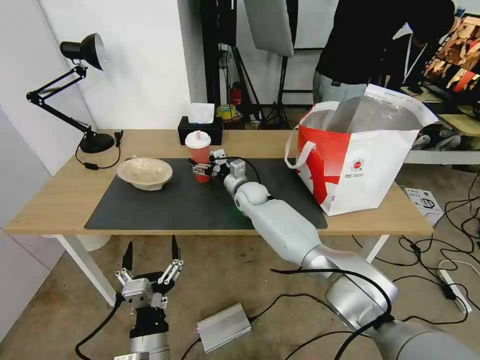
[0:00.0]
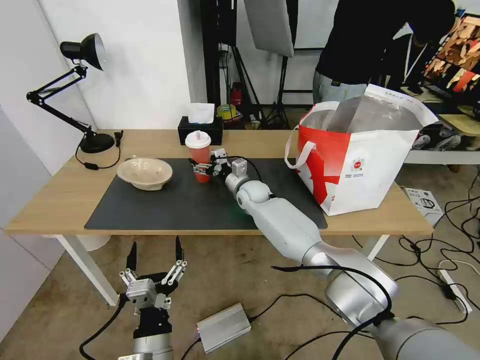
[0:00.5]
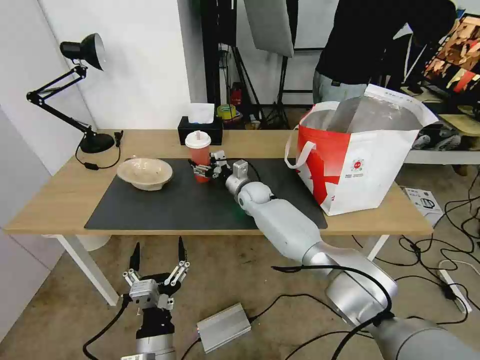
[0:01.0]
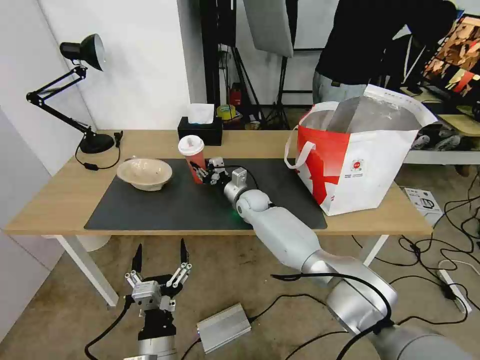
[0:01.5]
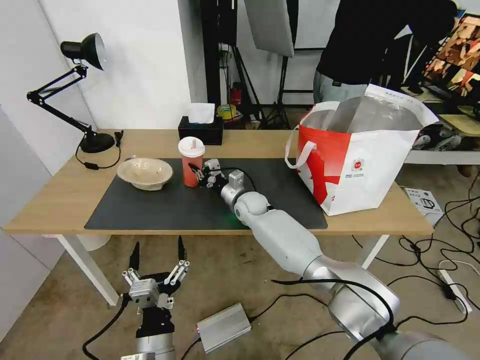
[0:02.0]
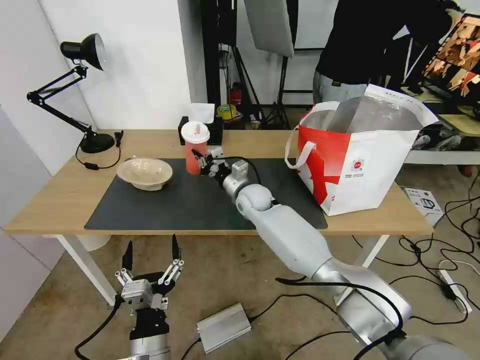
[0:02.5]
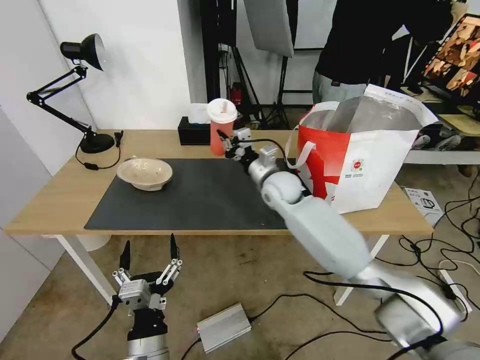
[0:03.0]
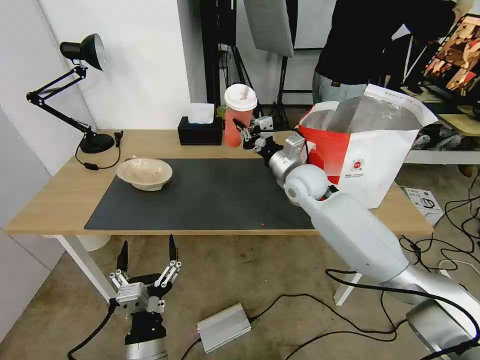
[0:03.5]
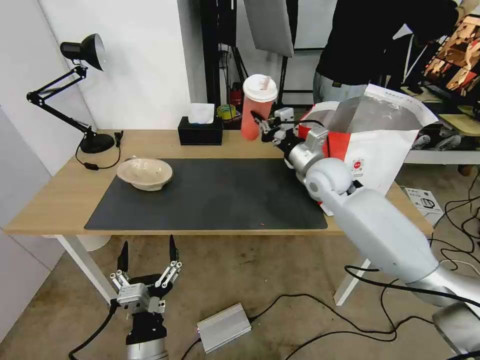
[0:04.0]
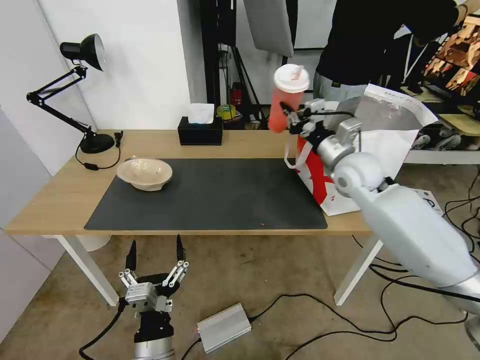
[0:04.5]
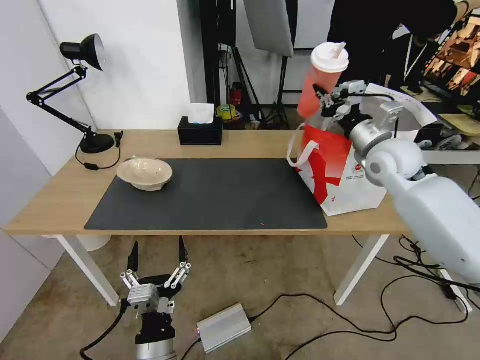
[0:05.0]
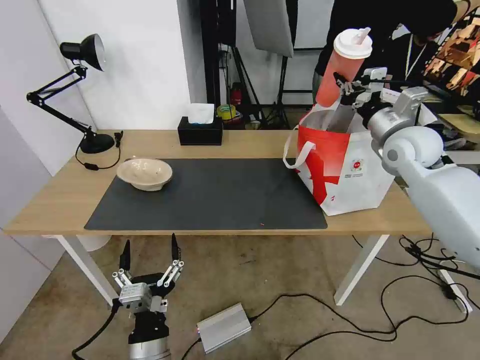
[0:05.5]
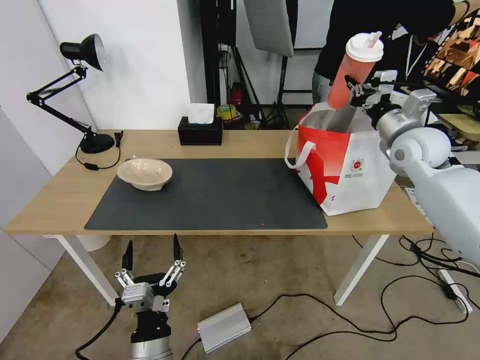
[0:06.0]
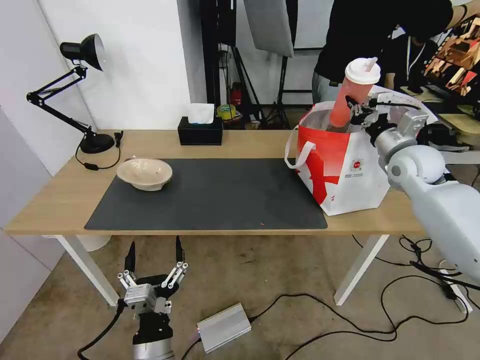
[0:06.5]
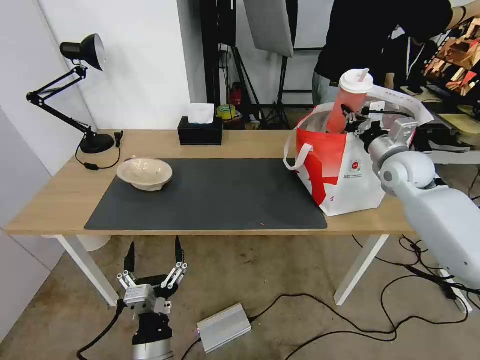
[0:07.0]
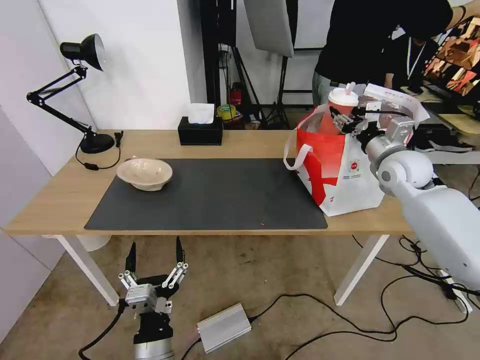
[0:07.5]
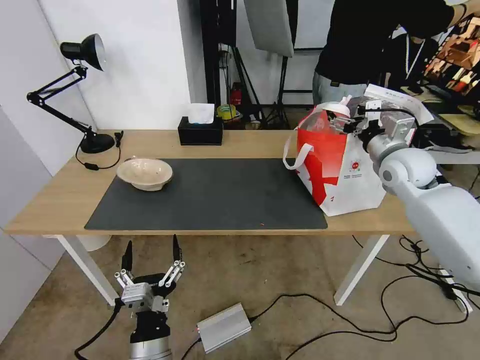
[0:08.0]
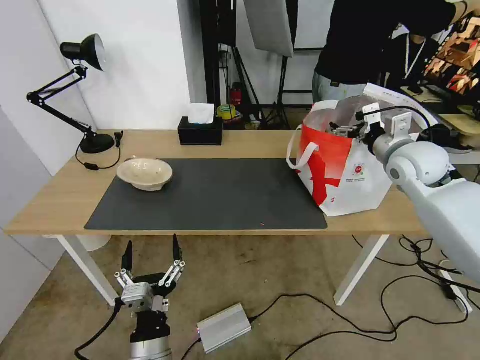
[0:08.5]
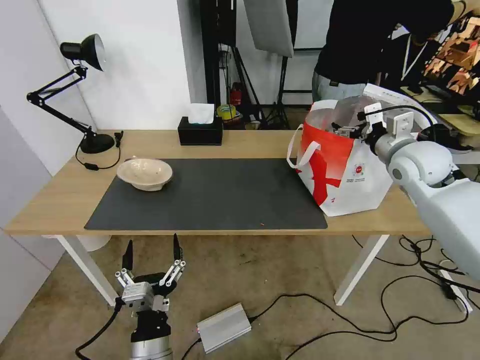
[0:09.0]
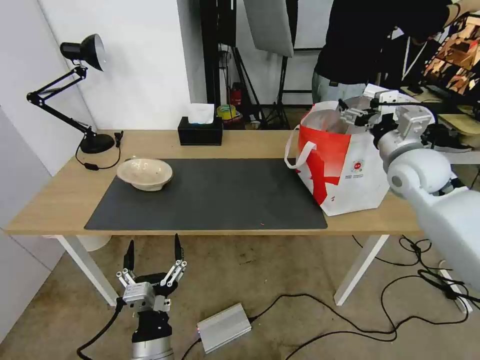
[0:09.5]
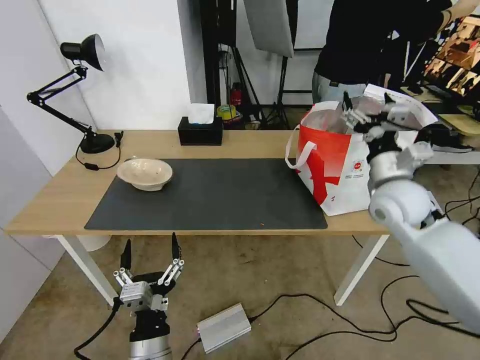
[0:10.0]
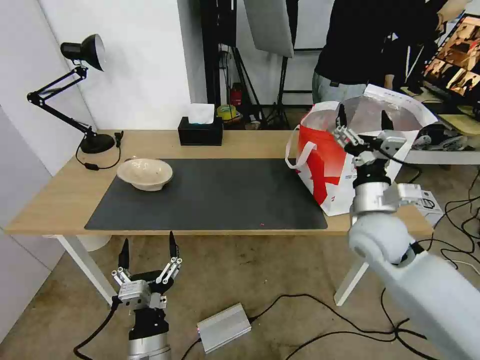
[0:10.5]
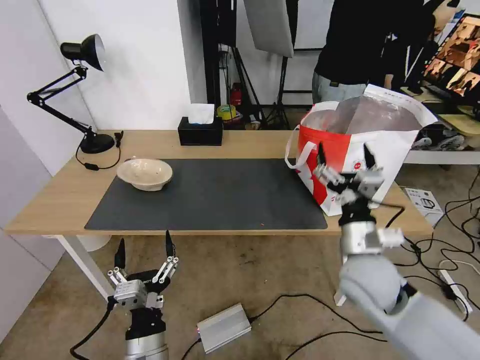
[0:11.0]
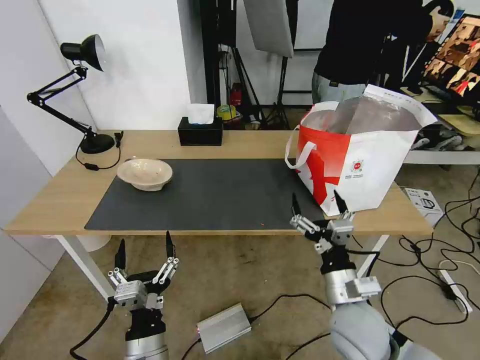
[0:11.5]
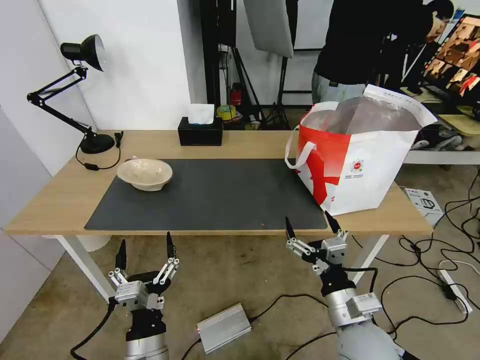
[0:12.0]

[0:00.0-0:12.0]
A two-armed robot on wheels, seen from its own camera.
Task of the whole recording: Pick up the trash from the table and place it into the takeout bag.
0.0 to 2.0 s: The right gripper closes its fingers.
2.0 to 4.0 s: The right gripper moves upward and to the right, some 25 cm.
4.0 to 6.0 s: The right gripper moves to the right, approximately 20 cm.
6.0 to 8.0 s: The right gripper opens up.
8.0 to 10.0 s: The right gripper heads backward, covering about 10 cm.
10.0 to 12.0 s: The right gripper is displaced backward, downward and to the left by roughly 30 cm.

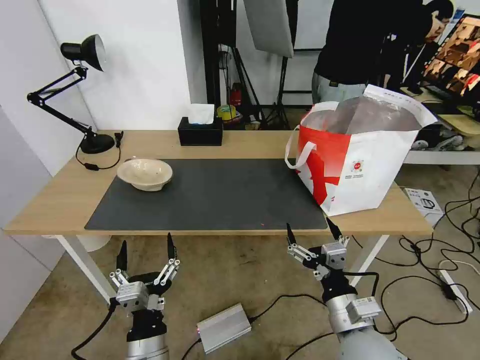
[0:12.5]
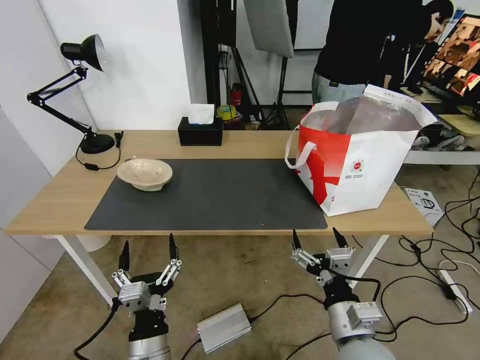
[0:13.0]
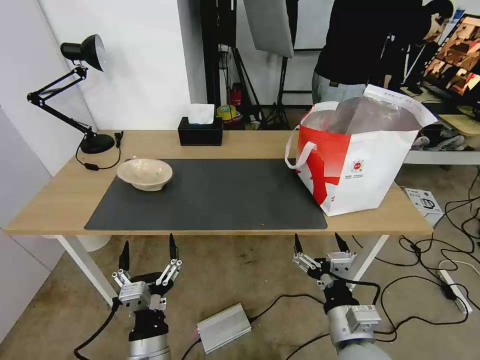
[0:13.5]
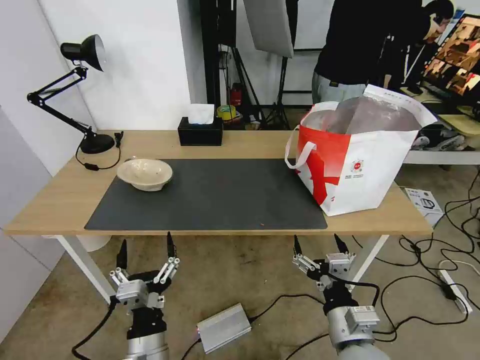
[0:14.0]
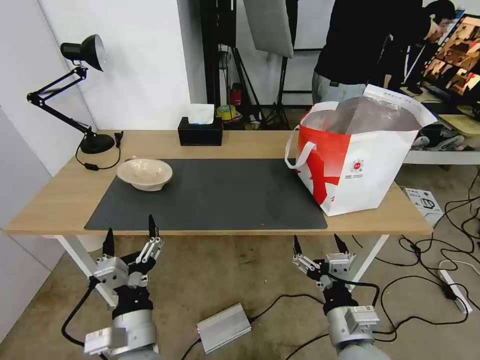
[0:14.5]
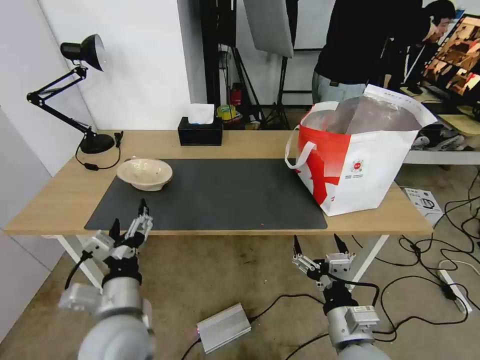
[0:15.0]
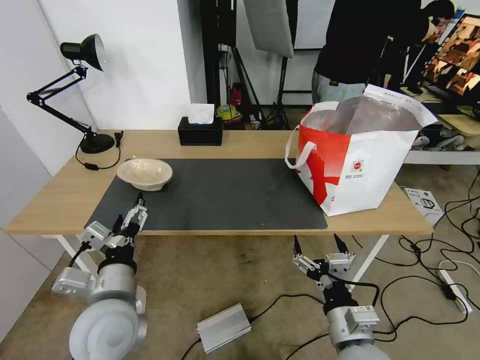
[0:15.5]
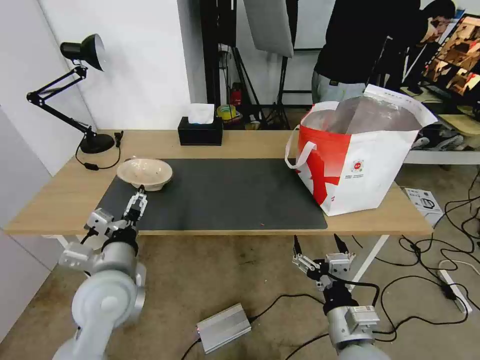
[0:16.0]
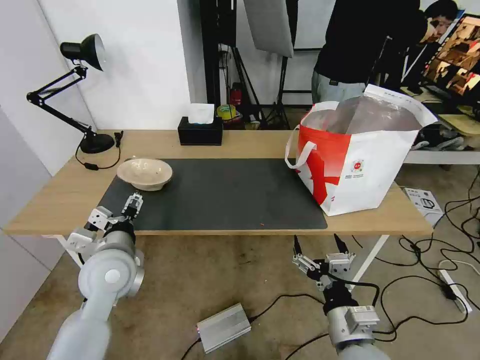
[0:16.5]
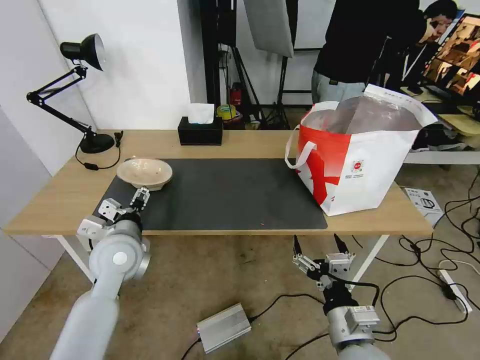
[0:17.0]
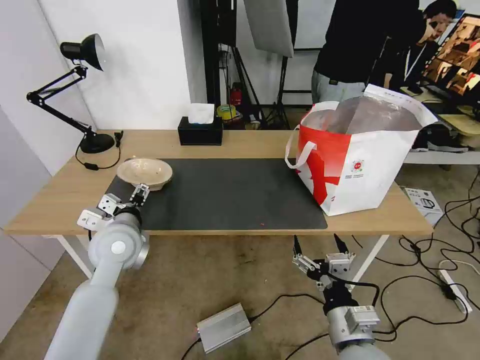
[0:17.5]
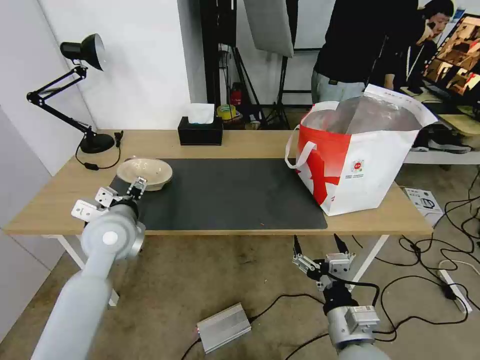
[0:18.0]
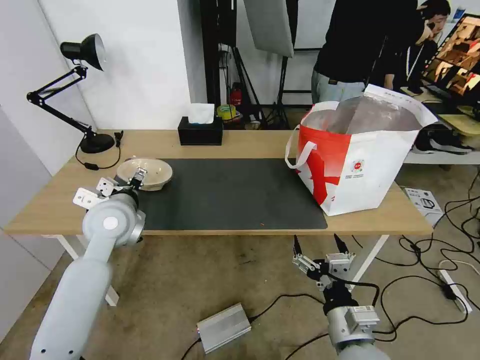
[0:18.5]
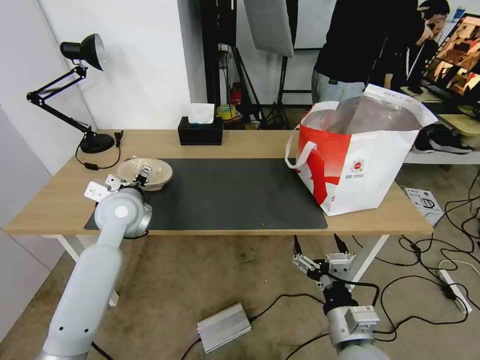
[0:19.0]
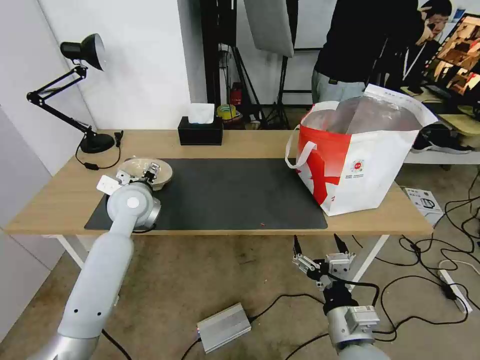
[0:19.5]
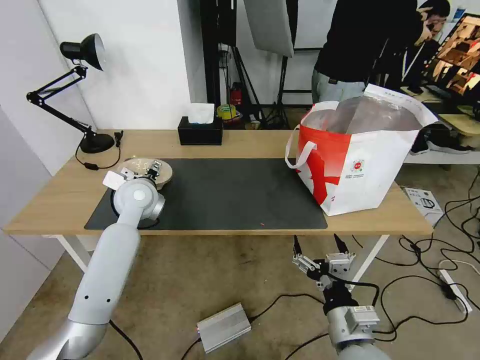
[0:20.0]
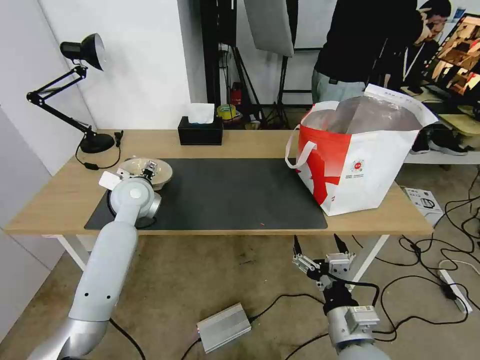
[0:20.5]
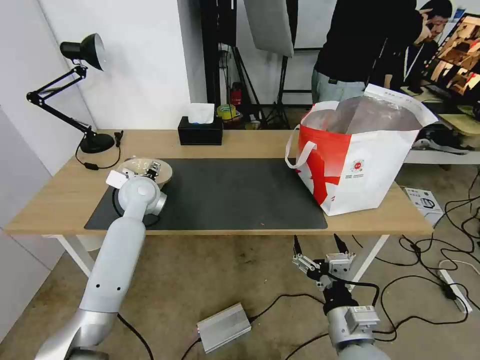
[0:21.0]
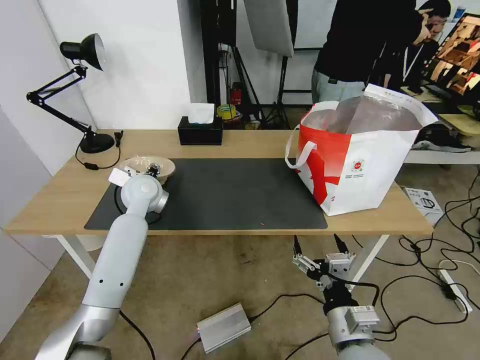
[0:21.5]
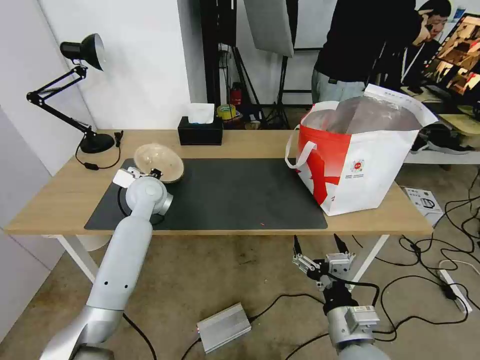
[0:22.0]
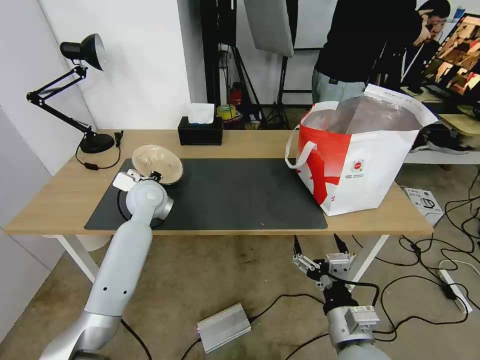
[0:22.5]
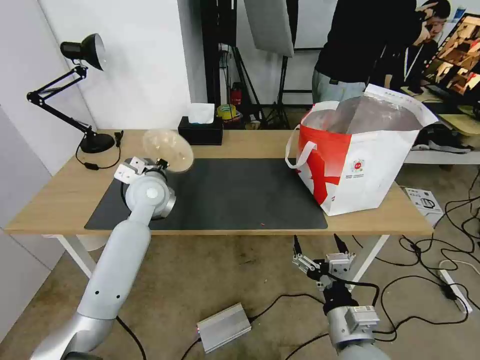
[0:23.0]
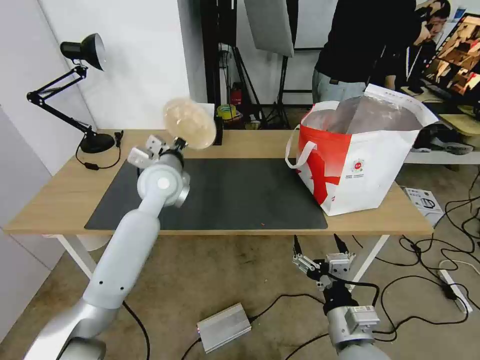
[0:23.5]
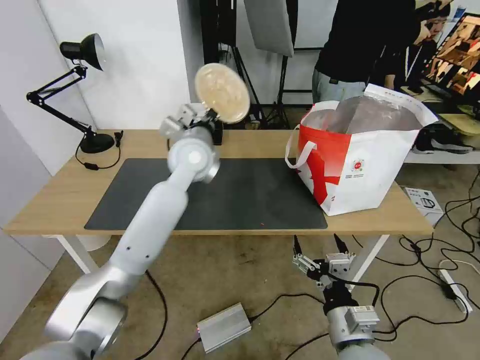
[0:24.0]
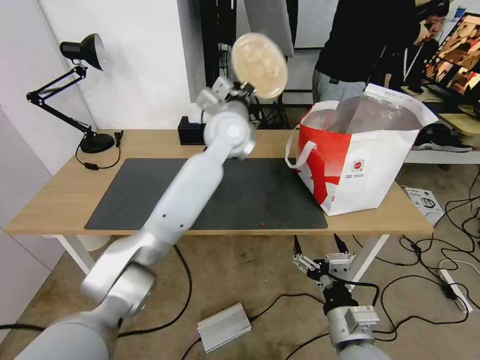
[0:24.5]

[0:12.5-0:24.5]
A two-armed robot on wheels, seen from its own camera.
Task of the whole recording: Pick up the trash from the table and place it into the takeout bag.
12.5 to 14.5 s: The left gripper moves some 5 cm.
14.5 to 16.5 s: The left gripper shifts some 20 cm forward, to the left and upward.
16.5 to 18.5 s: The left gripper goes approximately 10 cm forward and upward.
18.5 to 20.5 s: The left gripper travels forward by roughly 10 cm.
20.5 to 22.5 s: The left gripper closes up.
22.5 to 24.5 s: The left gripper is displaced to the right and upward by approximately 25 cm.

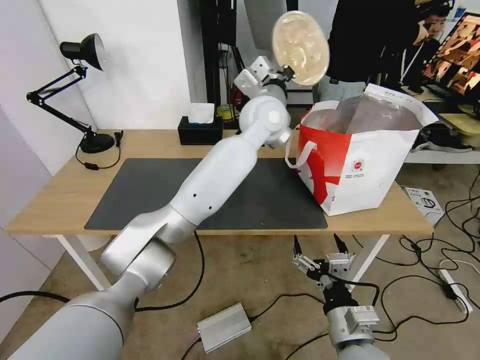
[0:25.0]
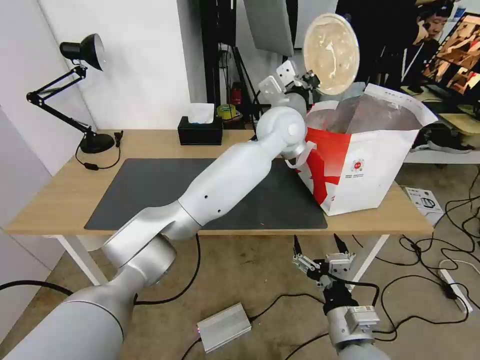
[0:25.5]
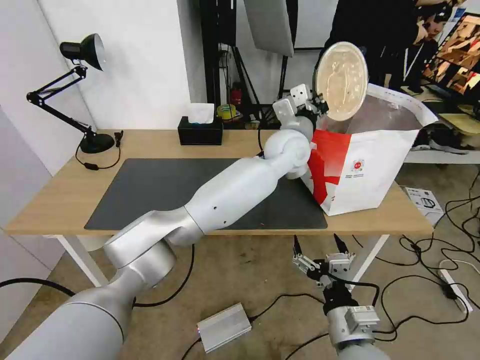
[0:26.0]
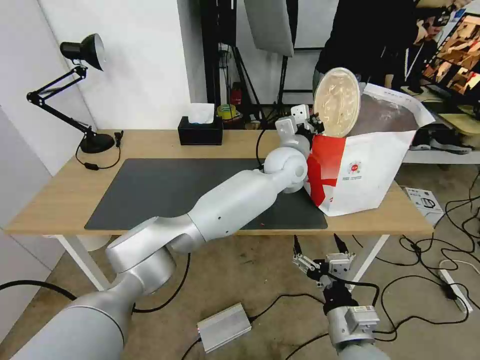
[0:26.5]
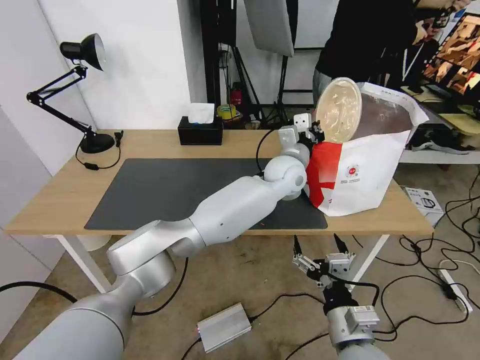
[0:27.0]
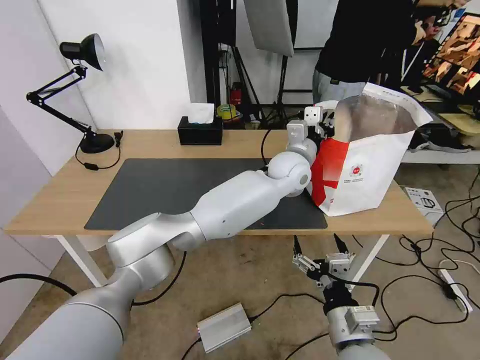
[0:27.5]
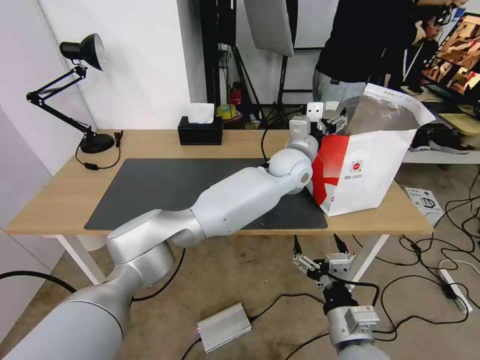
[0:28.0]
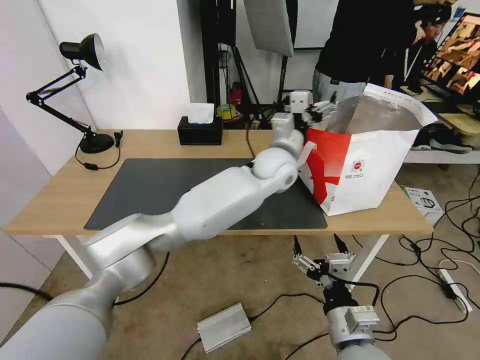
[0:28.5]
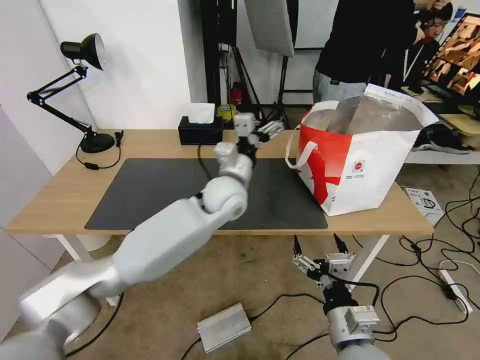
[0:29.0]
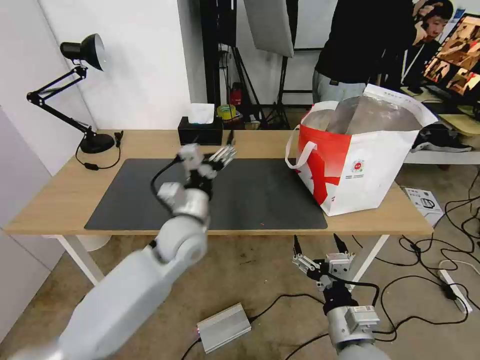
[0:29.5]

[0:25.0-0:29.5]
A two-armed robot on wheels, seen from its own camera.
Task of the whole recording: Pick up the trash from the table and place it into the takeout bag.
25.0 to 27.0 s: The left gripper travels downward and to the right by some 15 cm.
27.0 to 29.5 s: The left gripper is displaced to the left and backward by approximately 30 cm, and opens.
